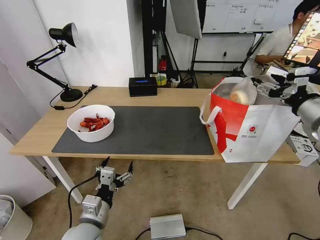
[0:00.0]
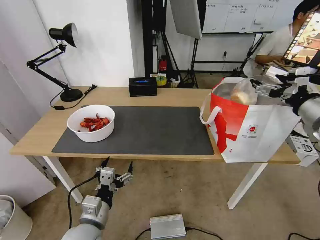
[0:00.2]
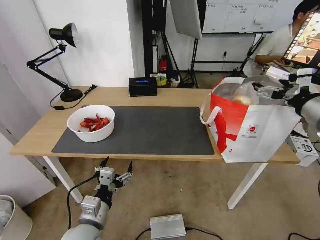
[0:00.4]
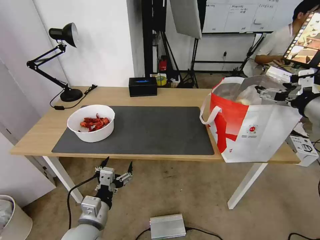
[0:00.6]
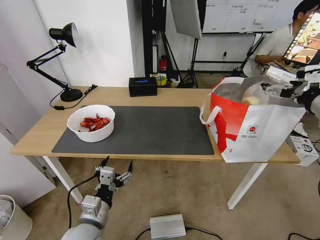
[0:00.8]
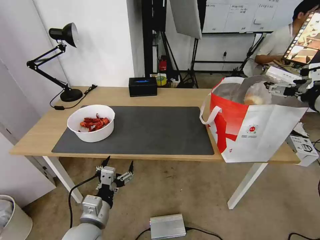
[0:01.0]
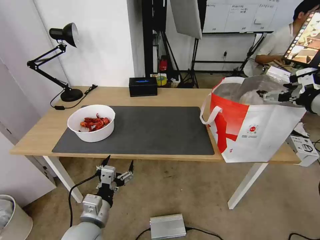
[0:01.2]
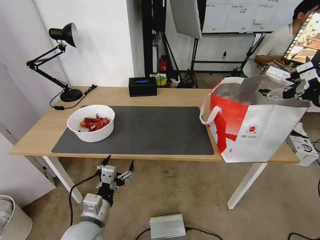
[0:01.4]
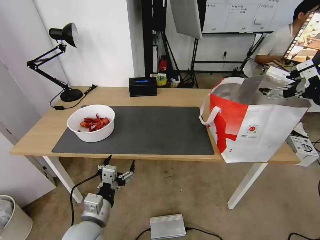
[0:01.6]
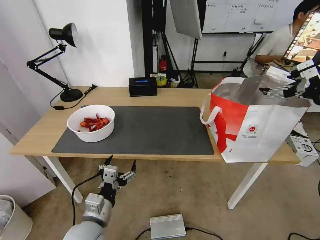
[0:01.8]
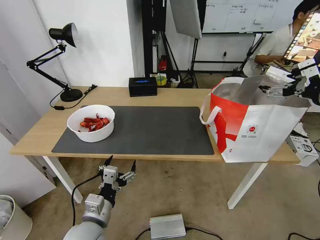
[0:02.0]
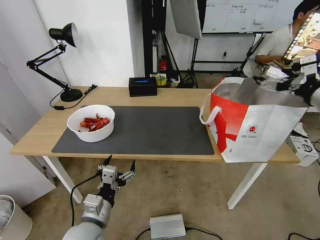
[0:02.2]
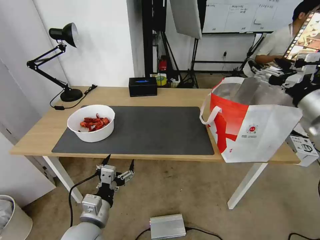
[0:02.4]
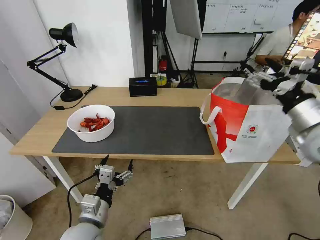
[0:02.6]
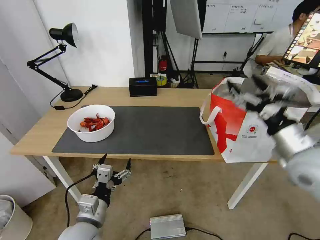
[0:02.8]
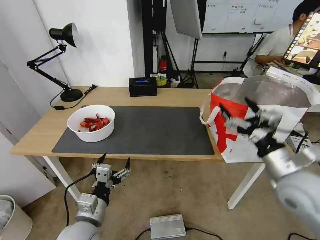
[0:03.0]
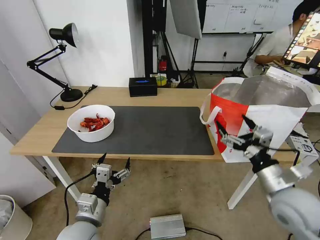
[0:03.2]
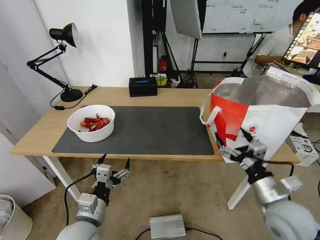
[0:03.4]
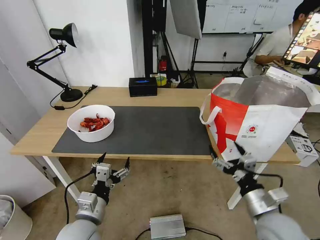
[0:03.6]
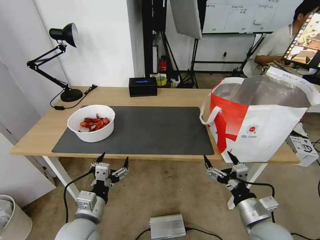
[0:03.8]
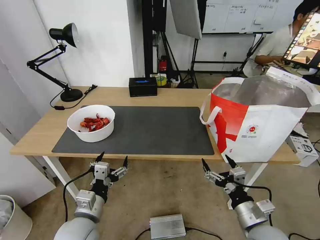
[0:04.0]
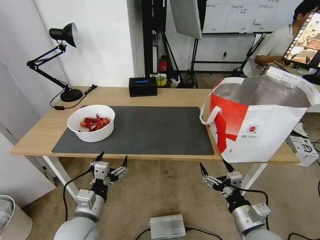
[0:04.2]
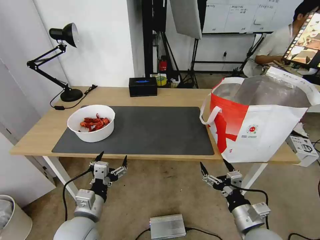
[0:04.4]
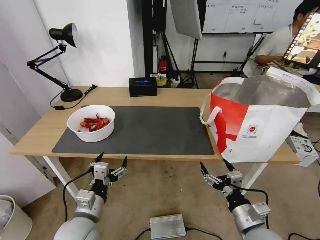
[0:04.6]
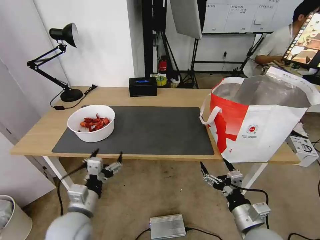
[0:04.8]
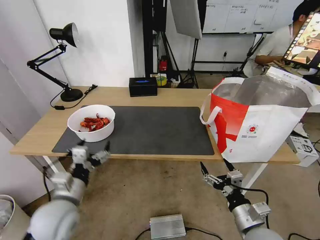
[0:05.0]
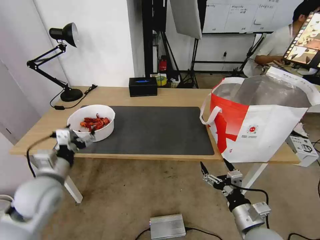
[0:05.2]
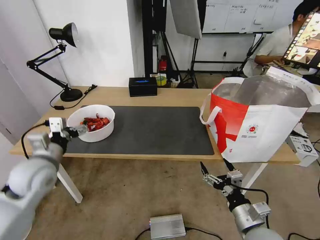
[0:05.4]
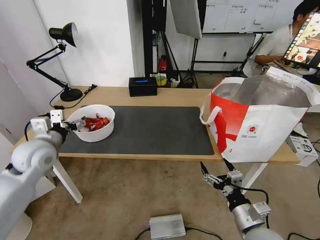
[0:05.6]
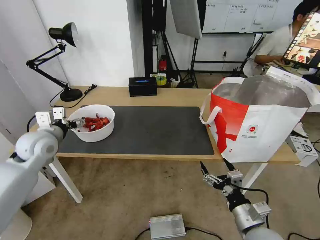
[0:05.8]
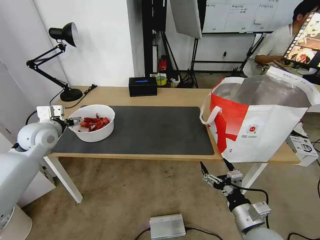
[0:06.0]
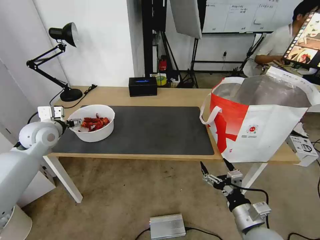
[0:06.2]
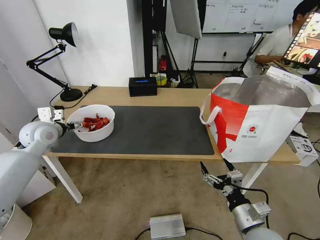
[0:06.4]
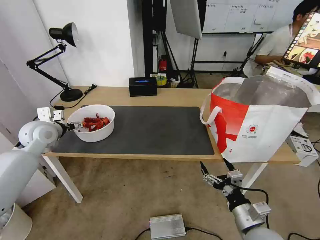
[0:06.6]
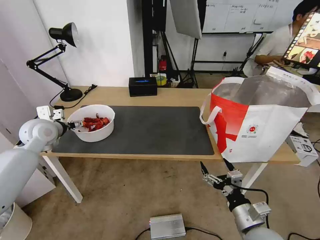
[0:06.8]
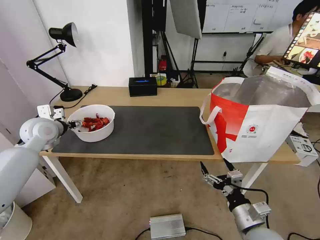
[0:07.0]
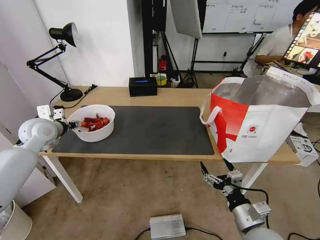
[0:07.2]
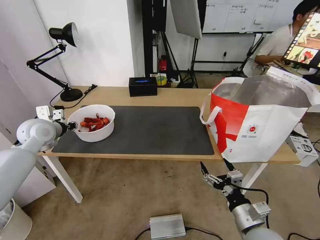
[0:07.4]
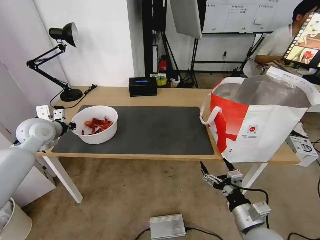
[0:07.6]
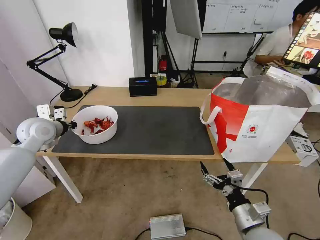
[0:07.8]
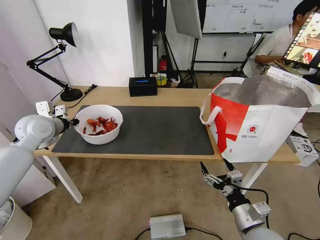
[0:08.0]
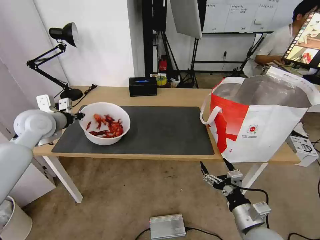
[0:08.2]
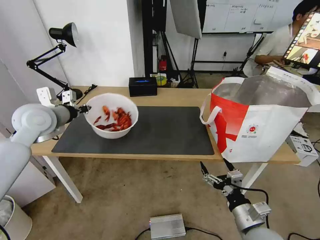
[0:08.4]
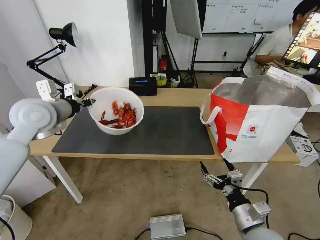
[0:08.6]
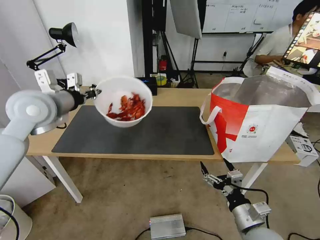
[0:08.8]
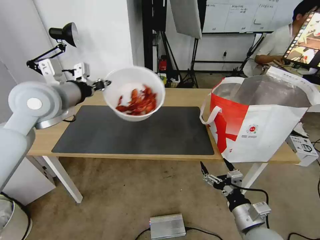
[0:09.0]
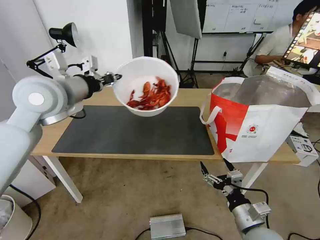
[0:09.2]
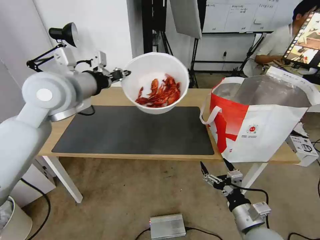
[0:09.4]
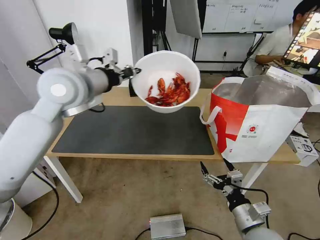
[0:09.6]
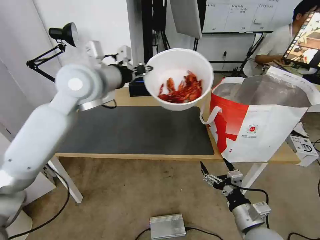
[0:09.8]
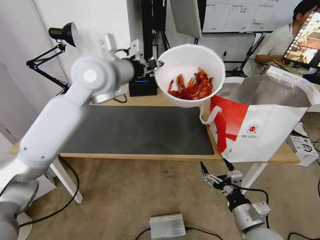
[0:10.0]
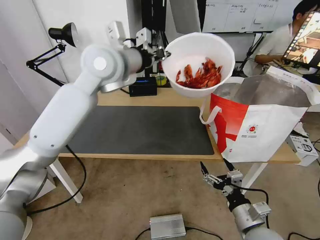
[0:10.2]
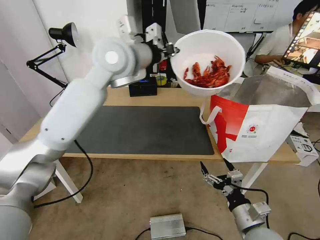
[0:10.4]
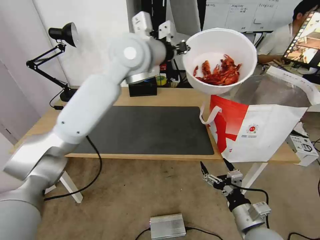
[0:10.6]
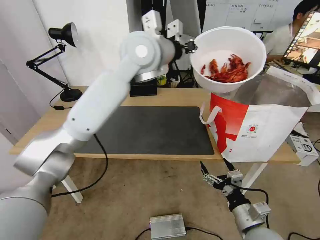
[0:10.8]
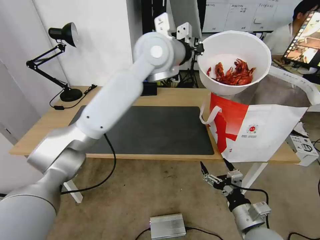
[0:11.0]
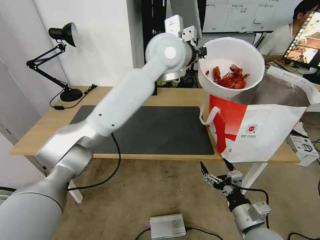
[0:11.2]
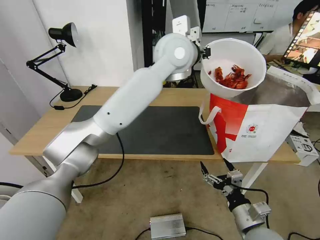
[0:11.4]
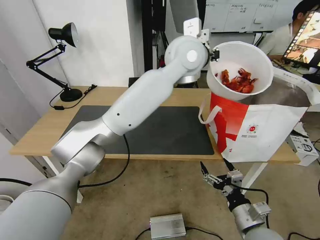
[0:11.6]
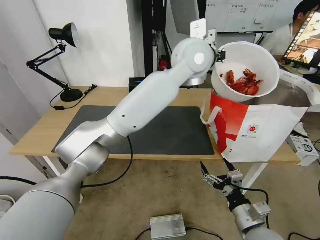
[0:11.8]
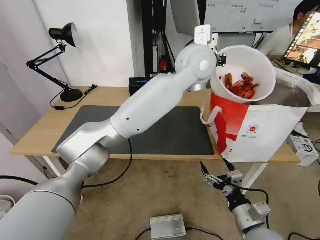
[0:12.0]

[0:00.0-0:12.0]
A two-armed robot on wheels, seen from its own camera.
Task of the whole recording: Pick up the trash from the table and place it into the takeout bag.
0:00.0 to 0:01.6: The right gripper travels upward by roughly 5 cm.
0:01.6 to 0:03.0: The right gripper travels downward, to the left and backward by some 25 cm.
0:03.0 to 0:04.4: The right gripper shifts some 20 cm downward, backward and to the left.
0:04.4 to 0:06.0: The left gripper shifts some 30 cm forward, to the left and upward.
0:06.0 to 0:07.6: The left gripper closes.
0:07.6 to 0:09.0: The left gripper travels upward and to the right by about 20 cm.
0:09.0 to 0:10.4: The left gripper travels to the right by roughly 20 cm.
0:10.4 to 0:12.0: The left gripper moves to the right, about 20 cm.

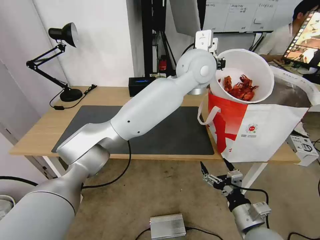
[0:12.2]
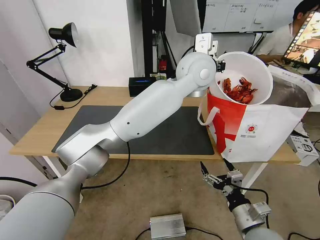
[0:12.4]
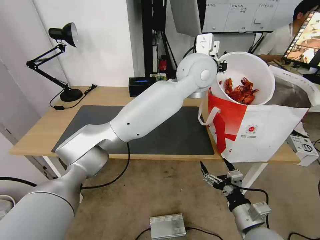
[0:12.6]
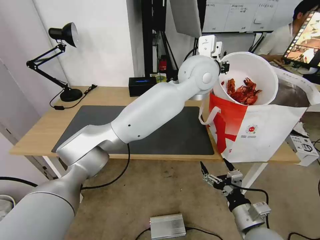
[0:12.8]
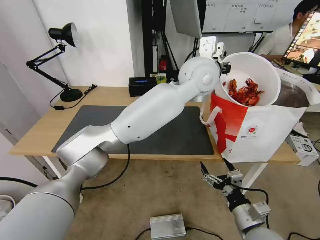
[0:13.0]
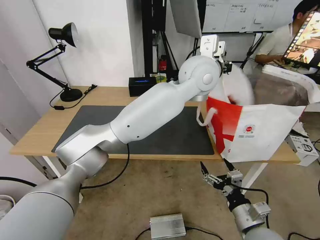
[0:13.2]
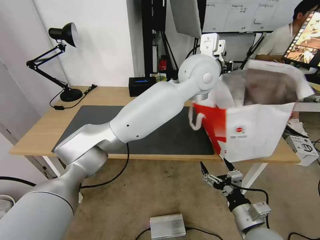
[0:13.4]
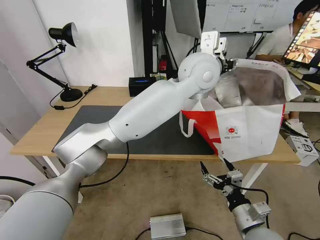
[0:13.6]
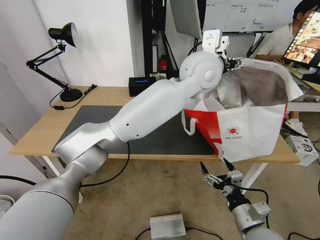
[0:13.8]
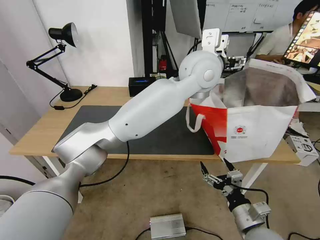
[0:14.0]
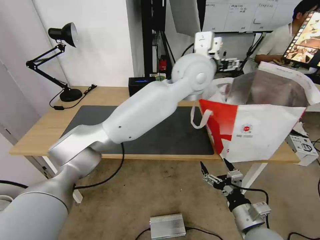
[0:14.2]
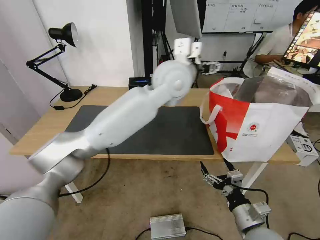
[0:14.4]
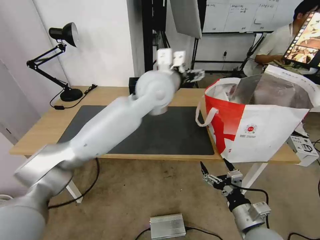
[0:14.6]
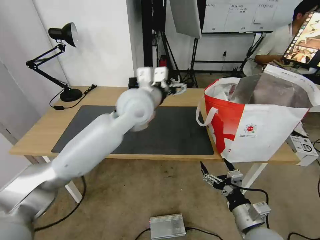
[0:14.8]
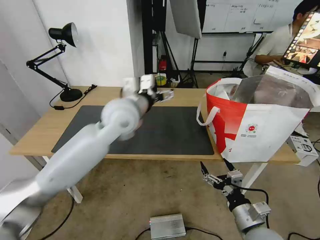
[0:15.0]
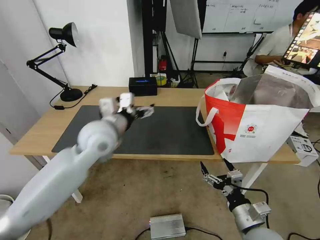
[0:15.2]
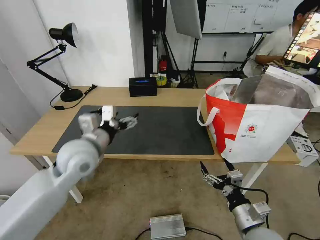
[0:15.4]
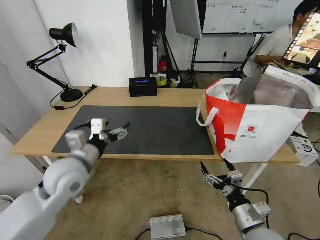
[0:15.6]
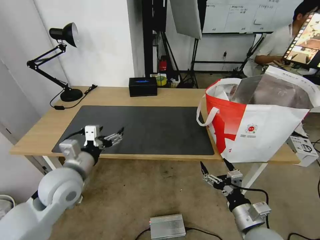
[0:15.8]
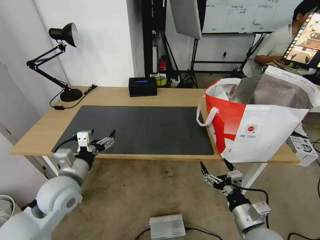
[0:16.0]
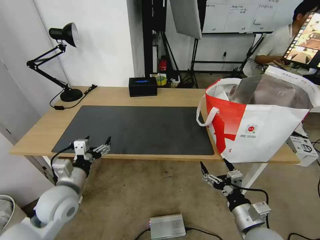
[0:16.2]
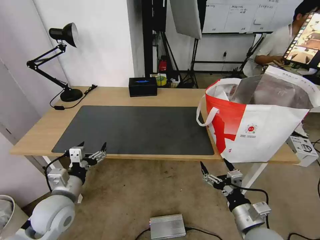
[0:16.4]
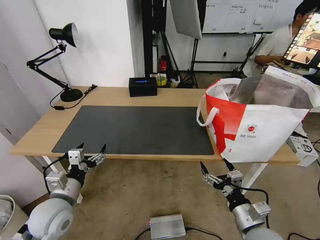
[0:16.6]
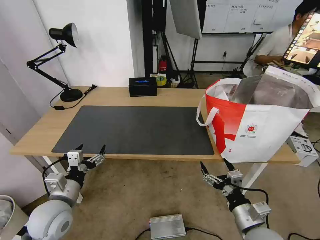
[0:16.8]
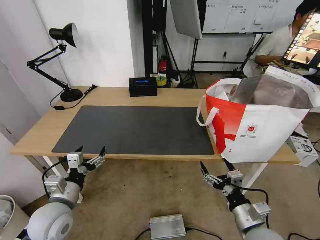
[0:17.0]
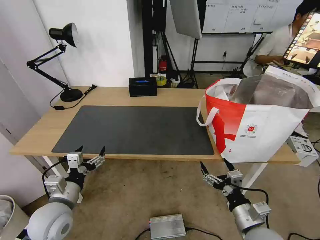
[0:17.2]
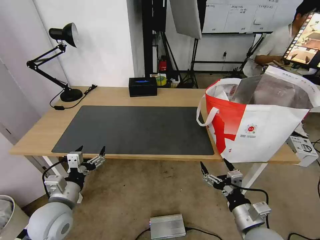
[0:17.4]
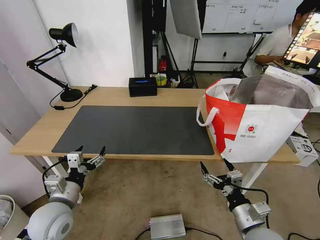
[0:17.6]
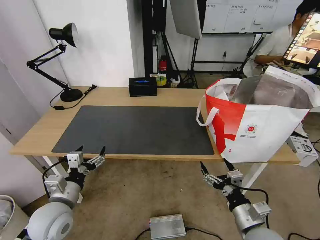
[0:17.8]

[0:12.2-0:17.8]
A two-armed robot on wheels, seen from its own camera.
Task of the whole recording: Pick up the trash from the table and place it into the takeout bag.
0:12.2 to 0:13.6: The left gripper opens.
0:13.6 to 0:15.0: The left gripper moves to the left and downward, about 20 cm.
0:15.0 to 0:16.4: The left gripper travels downward, to the left and backward by roughly 30 cm.
0:16.4 to 0:17.8: There are only small adjustments of the grippers.

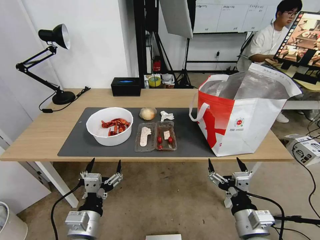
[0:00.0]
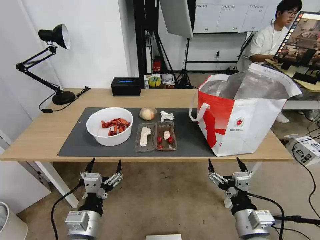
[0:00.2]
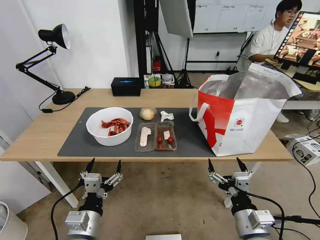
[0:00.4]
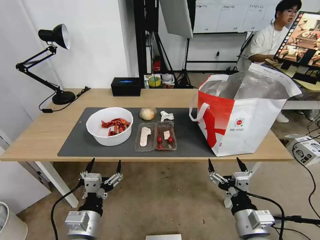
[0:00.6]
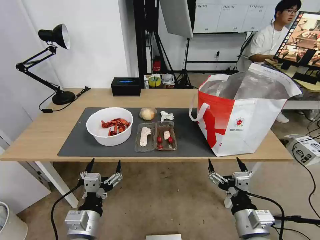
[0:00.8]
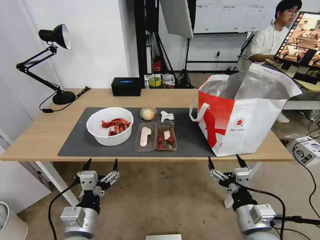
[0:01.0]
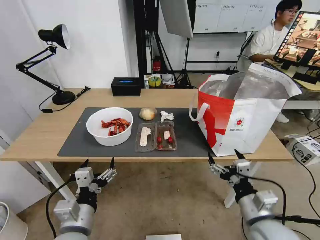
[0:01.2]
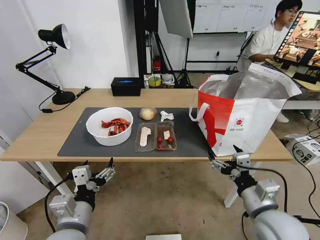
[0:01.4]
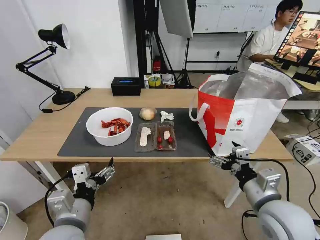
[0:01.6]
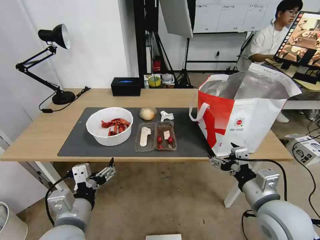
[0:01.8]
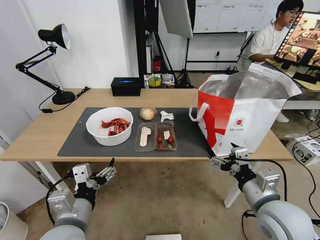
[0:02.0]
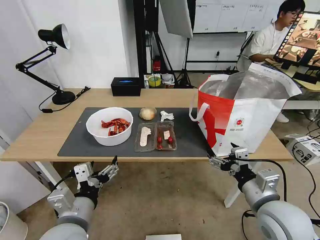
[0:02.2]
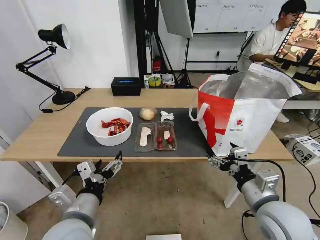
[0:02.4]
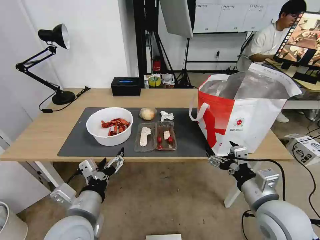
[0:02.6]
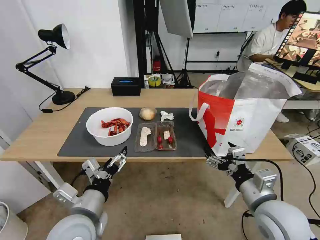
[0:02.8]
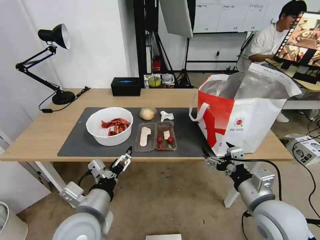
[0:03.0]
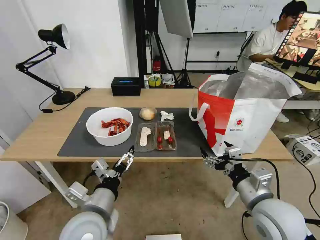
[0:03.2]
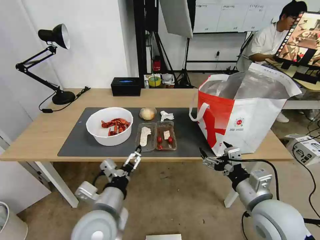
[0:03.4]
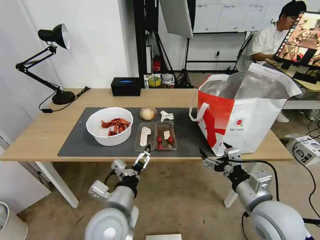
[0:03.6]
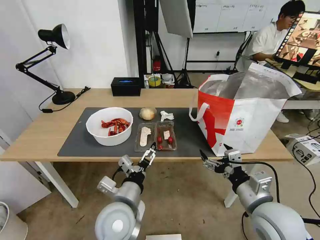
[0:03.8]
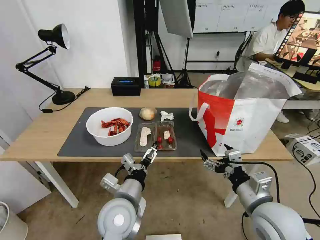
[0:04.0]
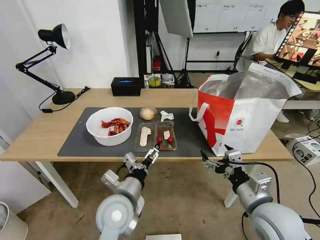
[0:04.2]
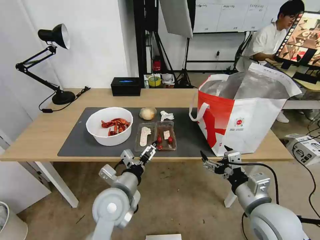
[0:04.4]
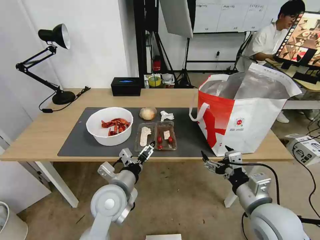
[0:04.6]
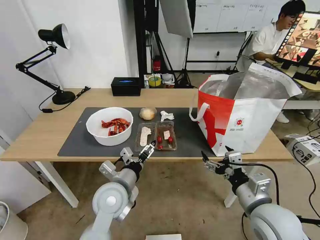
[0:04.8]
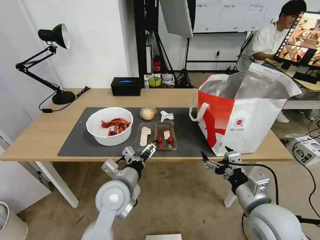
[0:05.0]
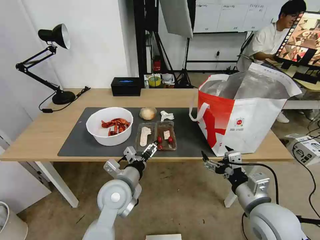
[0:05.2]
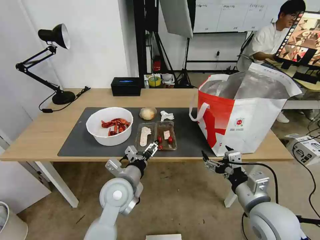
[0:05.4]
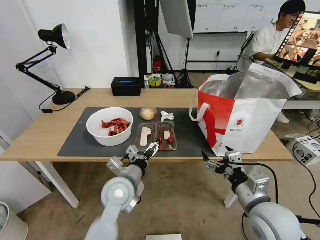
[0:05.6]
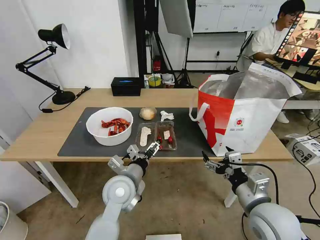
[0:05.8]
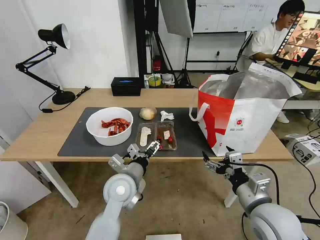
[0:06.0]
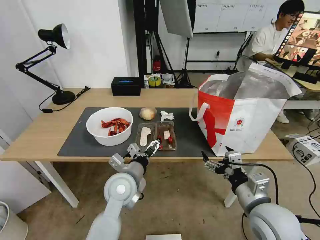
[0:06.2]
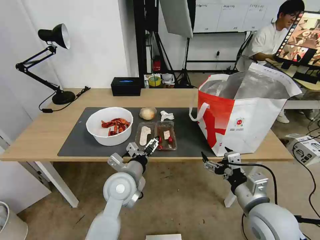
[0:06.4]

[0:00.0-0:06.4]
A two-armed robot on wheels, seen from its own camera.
Task of the whole recording: Pick up the trash from the table and place it into the takeout bag.
0:01.6 to 0:03.2: The left gripper shifts by roughly 5 cm.
0:03.2 to 0:04.8: The left gripper goes roughly 10 cm forward.
0:04.8 to 0:06.4: The grippers move only a little.
